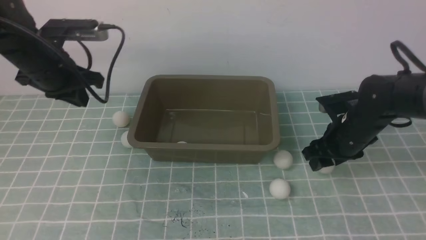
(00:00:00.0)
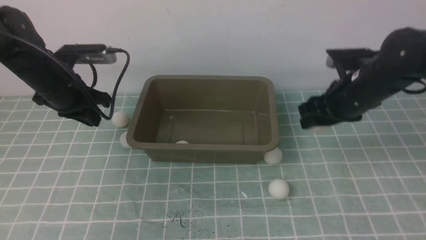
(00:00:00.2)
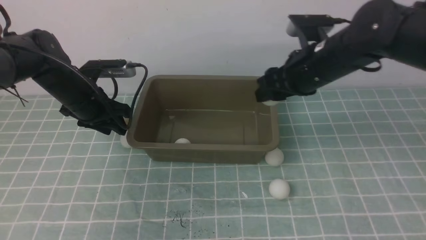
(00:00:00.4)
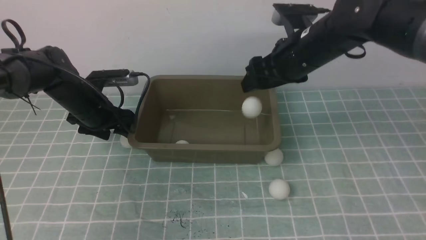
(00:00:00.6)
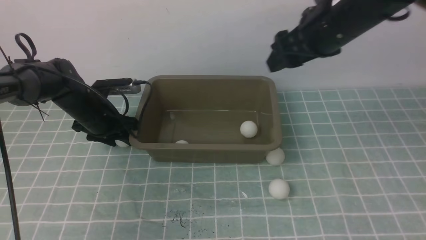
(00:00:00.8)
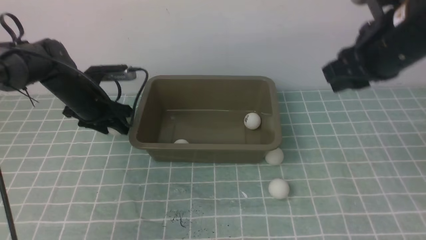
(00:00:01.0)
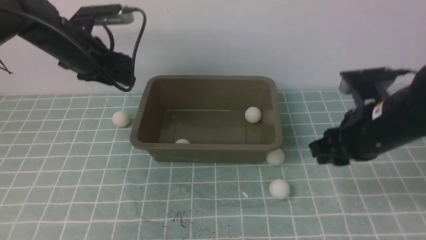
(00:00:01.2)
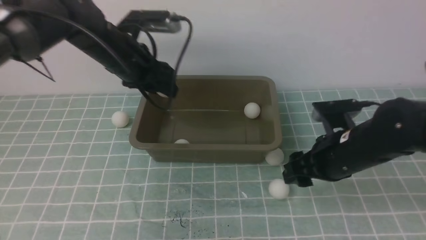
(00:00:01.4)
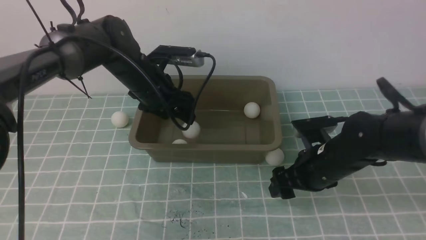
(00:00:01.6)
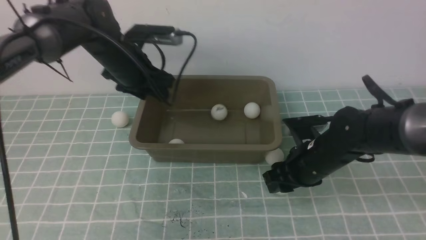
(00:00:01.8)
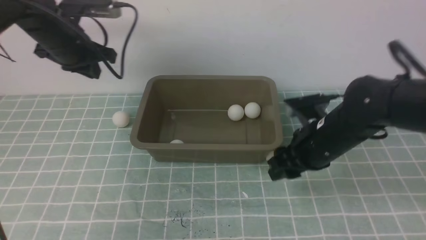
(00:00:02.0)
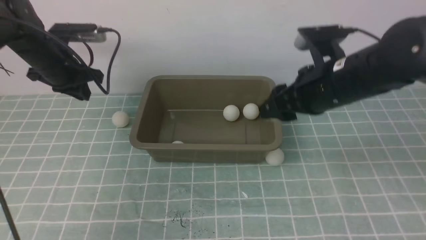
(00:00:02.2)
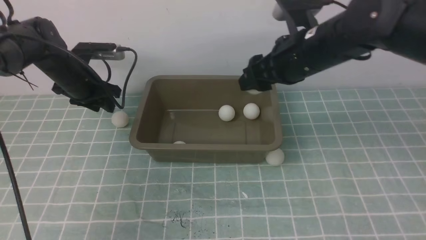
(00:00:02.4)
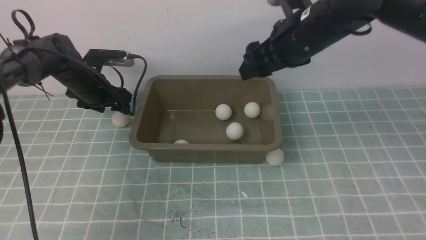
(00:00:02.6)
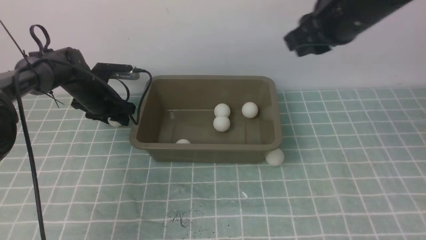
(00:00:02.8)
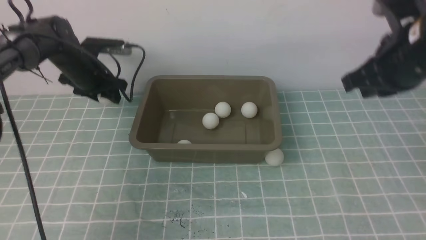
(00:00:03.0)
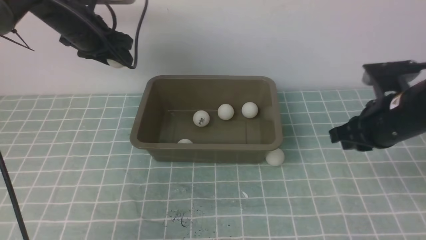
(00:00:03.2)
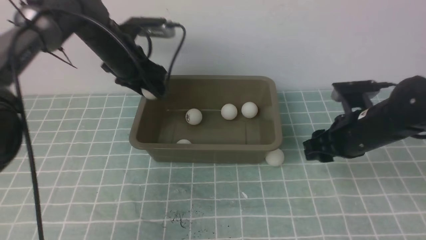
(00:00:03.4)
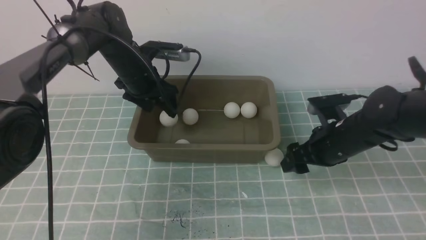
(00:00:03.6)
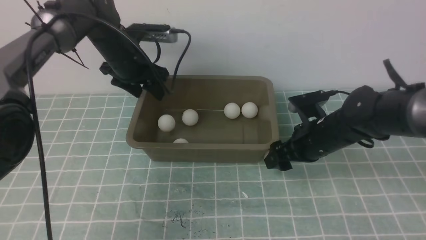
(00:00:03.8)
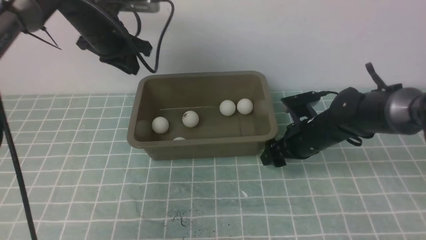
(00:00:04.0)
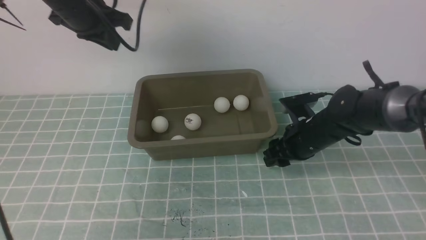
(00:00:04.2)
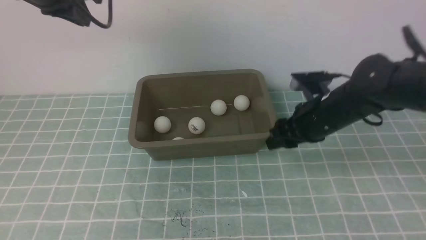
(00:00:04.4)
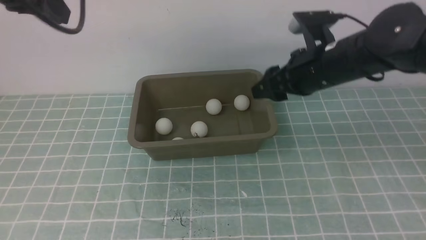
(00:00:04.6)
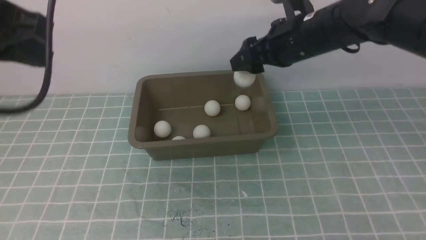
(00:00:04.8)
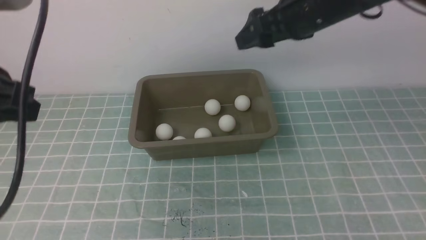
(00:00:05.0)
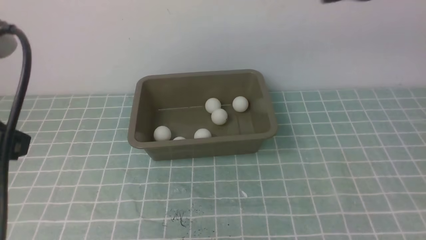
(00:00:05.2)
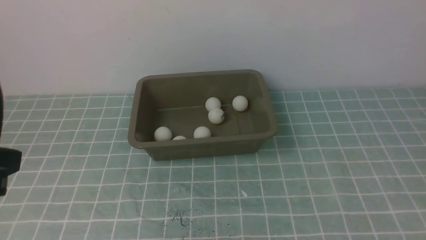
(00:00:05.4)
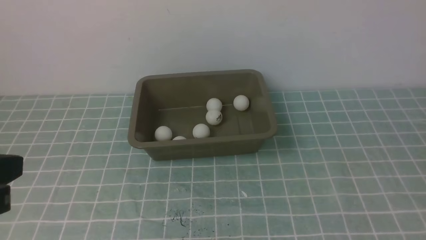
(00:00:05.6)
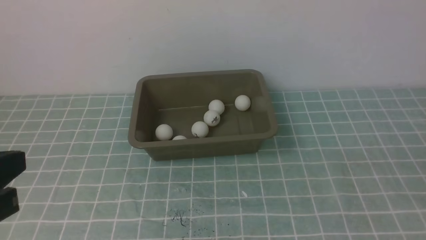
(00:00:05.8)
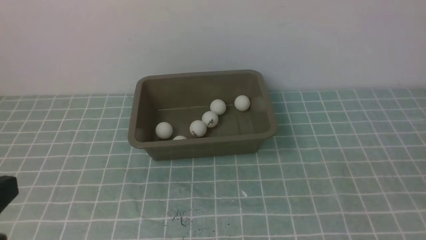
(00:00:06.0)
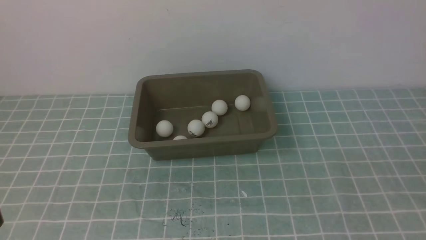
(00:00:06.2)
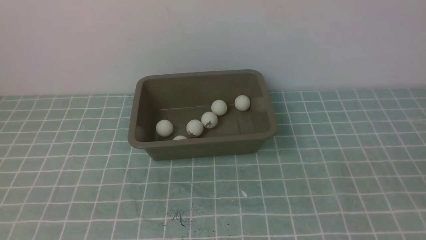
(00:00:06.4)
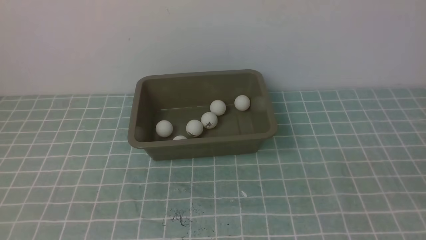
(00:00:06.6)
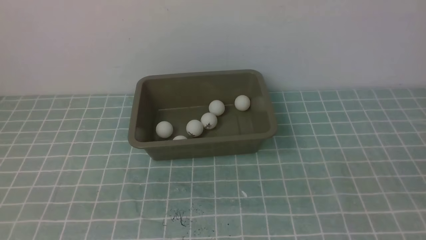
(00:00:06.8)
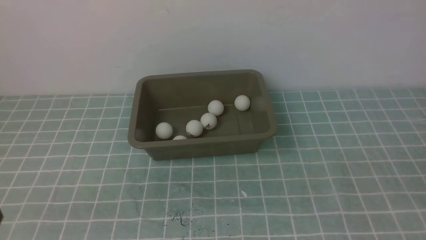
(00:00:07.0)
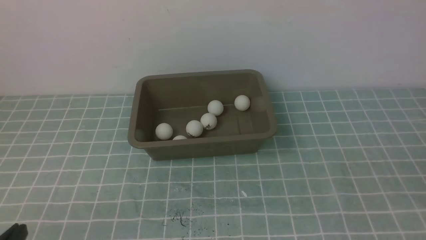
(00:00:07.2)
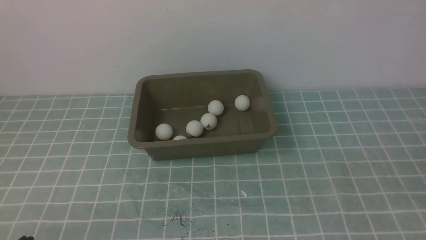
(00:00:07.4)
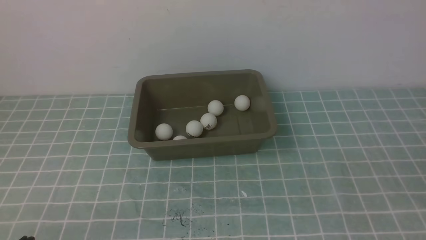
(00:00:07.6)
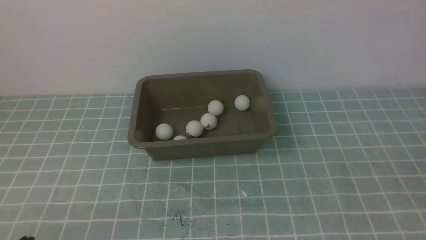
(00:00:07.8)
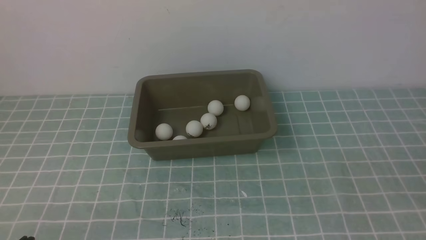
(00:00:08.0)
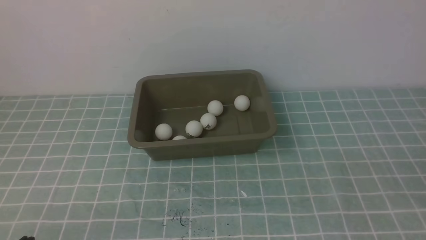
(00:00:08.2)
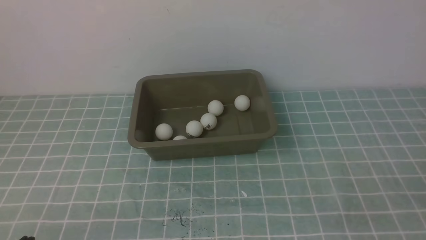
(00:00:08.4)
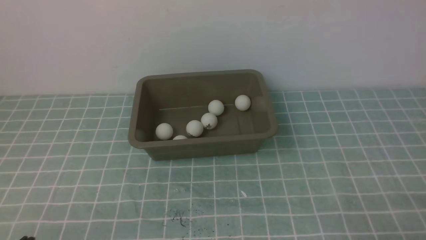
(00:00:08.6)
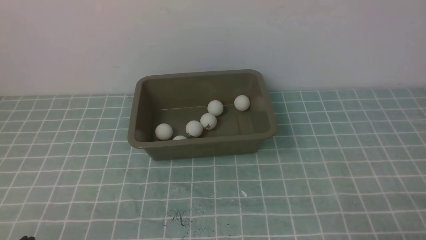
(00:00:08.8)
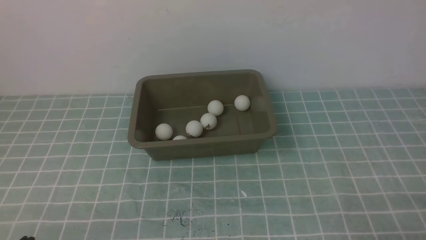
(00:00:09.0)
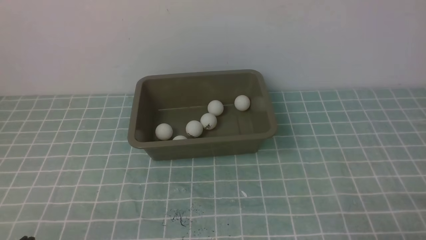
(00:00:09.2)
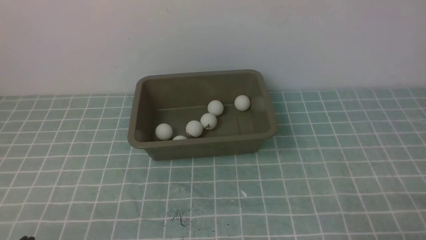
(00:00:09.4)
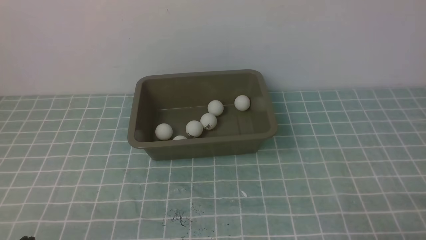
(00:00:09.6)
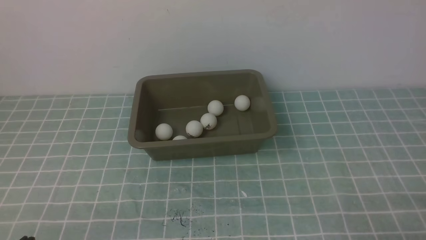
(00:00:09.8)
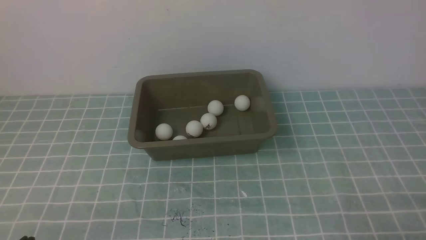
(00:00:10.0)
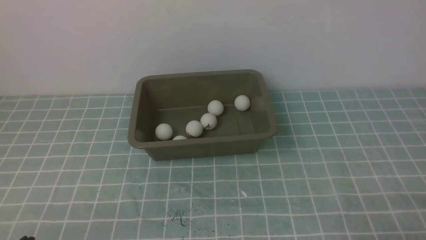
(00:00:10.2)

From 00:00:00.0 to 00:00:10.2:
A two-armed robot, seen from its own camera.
Step, from 00:00:00.2 to 00:00:00.6: use the right arm to put the table tennis ball into the box.
Step, from 00:00:00.8 to 00:00:01.0: use the left arm to clamp the table tennis ball closest to it.
Step, from 00:00:01.2 to 00:00:01.6: use the left arm to put the table tennis ball into the box.
Step, from 00:00:01.8 to 00:00:02.0: use the right arm to clamp the table tennis ball closest to it.
Step, from 00:00:02.2 to 00:00:02.4: use the right arm to put the table tennis ball into the box.
Step, from 00:00:02.6 to 00:00:02.8: use the left arm to clamp the table tennis ball closest to it.
Step, from 00:00:03.0 to 00:00:03.4: use the left arm to put the table tennis ball into the box.
Step, from 00:00:03.6 to 00:00:04.2: use the right arm to clamp the table tennis ball closest to it.
Step, from 00:00:04.4 to 00:00:04.8: use the right arm to put the table tennis ball into the box.
From 00:00:00.0 to 00:00:01.4: The left gripper is displaced to the right by about 10 cm, moves some 10 cm downward and comes back, and opens, while the right gripper travels backward by some 5 cm, and goes upward and returns, about 15 cm each way.
From 00:00:01.4 to 00:00:03.0: The left gripper is displaced to the left and forward by some 10 cm, and closes, then reopens. Meanwhile the right gripper shifts some 10 cm upward, and closes up.
From 00:00:03.0 to 00:00:04.4: The right gripper travels downward and to the left by approximately 10 cm, and opens its fingers. The left gripper moves upward and backward, roughly 20 cm, and closes.
From 00:00:04.4 to 00:00:05.8: The right gripper shifts about 35 cm backward and to the right, and closes up. The left gripper travels backward by roughly 30 cm.
From 00:00:05.8 to 00:00:07.2: The left gripper moves downward, approximately 15 cm.
From 00:00:08.8 to 00:00:10.2: Neither gripper changes place.
